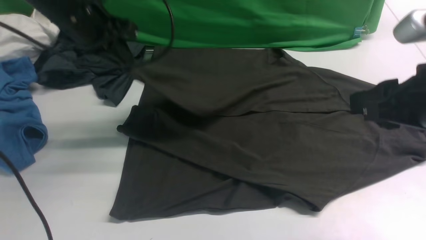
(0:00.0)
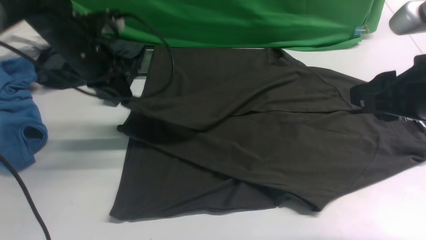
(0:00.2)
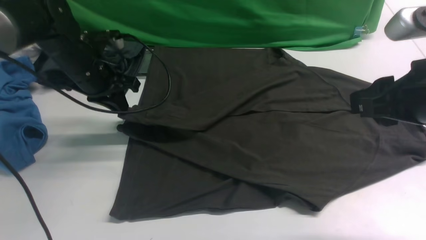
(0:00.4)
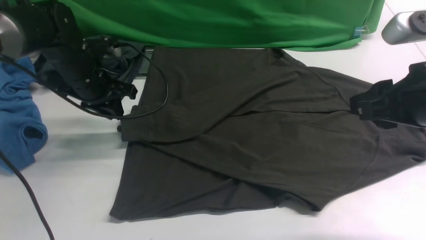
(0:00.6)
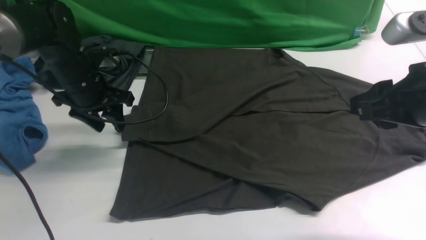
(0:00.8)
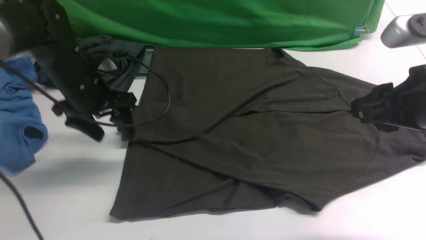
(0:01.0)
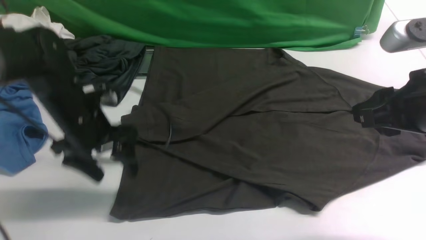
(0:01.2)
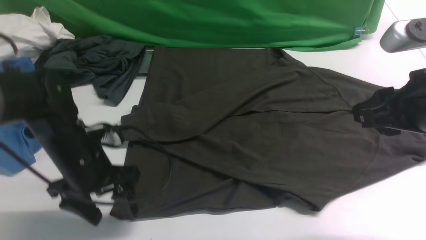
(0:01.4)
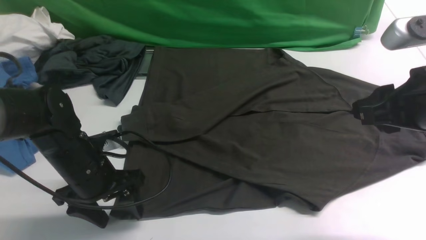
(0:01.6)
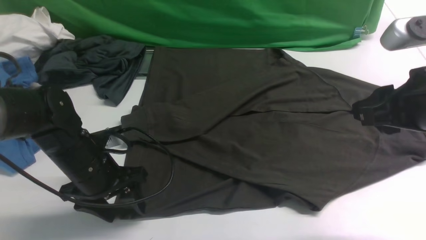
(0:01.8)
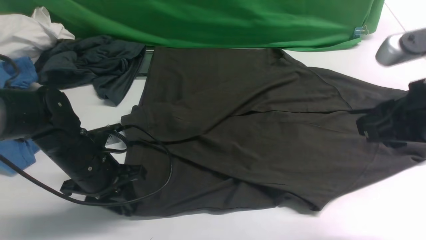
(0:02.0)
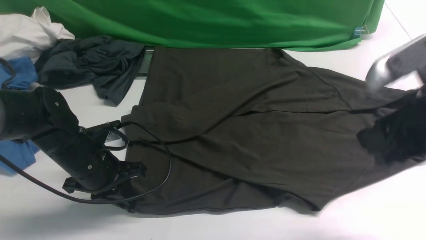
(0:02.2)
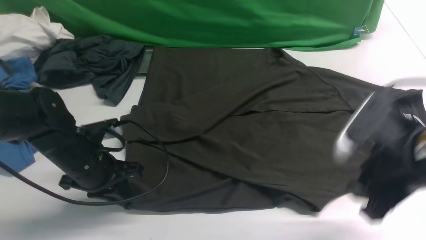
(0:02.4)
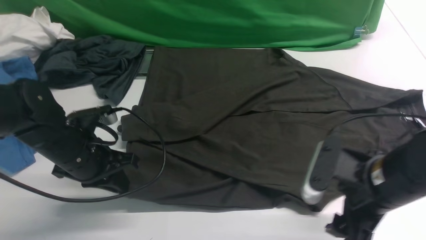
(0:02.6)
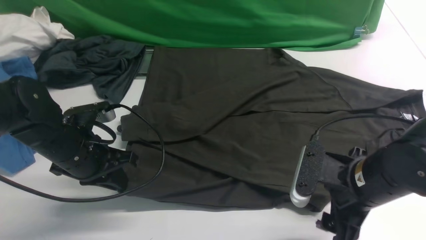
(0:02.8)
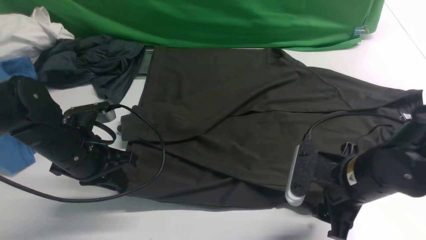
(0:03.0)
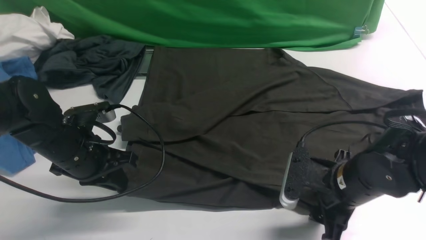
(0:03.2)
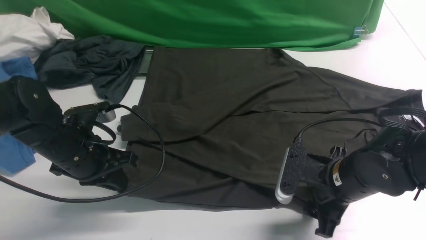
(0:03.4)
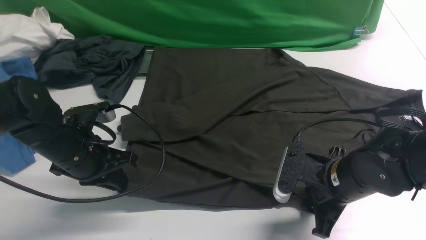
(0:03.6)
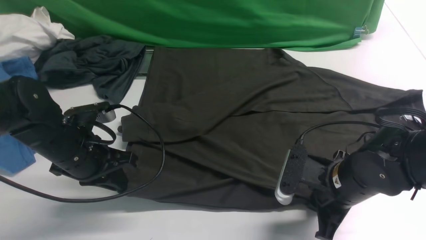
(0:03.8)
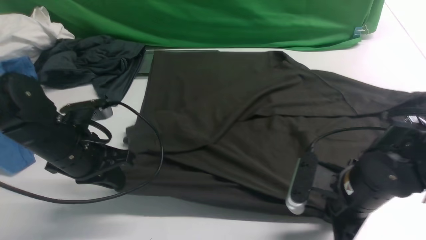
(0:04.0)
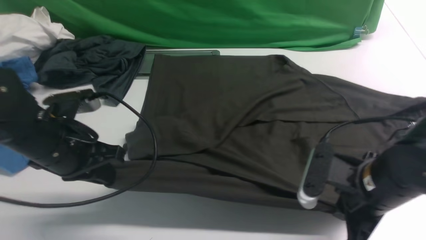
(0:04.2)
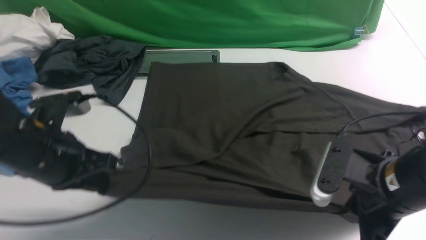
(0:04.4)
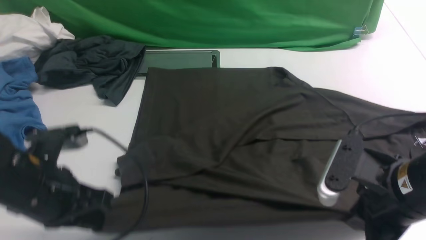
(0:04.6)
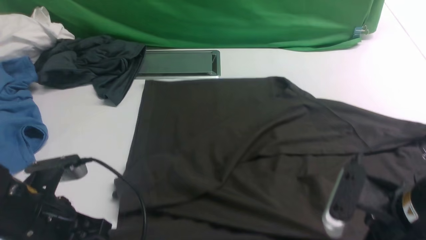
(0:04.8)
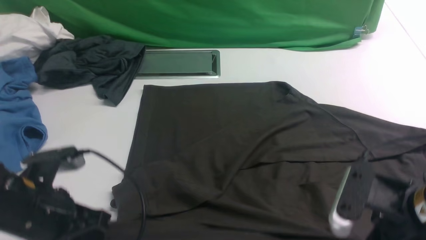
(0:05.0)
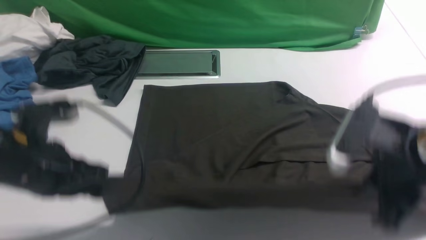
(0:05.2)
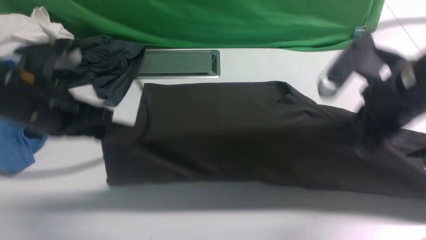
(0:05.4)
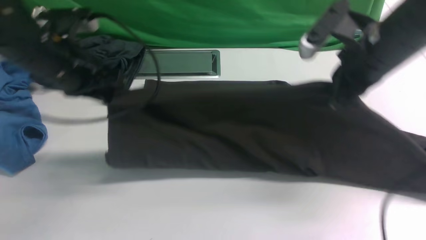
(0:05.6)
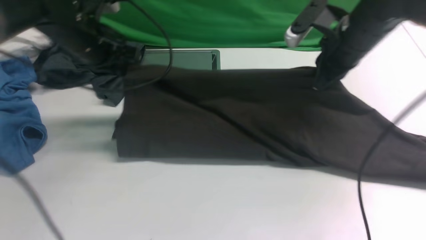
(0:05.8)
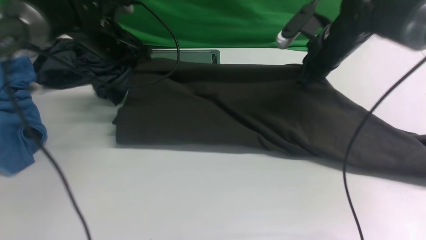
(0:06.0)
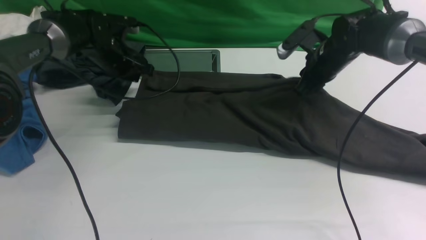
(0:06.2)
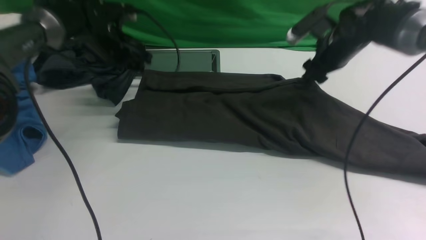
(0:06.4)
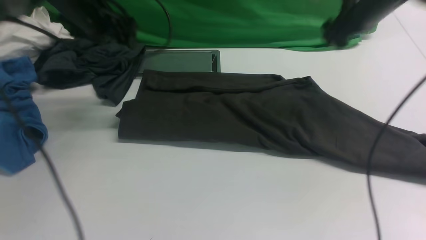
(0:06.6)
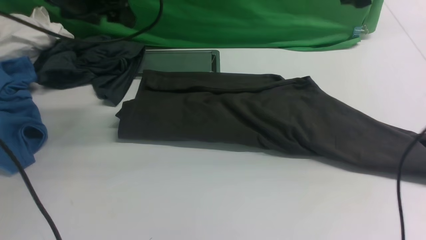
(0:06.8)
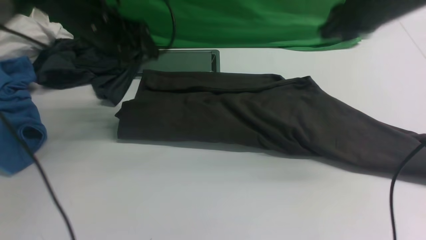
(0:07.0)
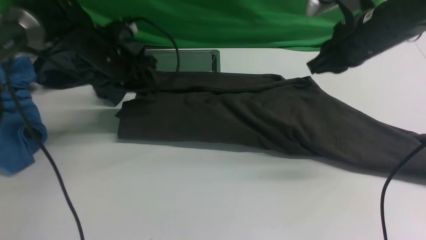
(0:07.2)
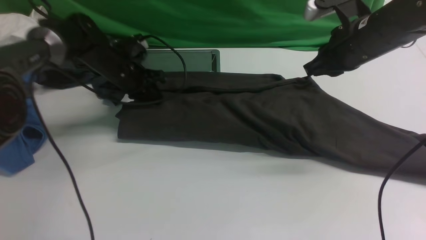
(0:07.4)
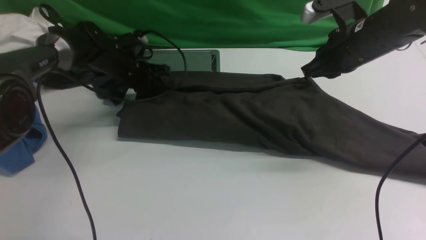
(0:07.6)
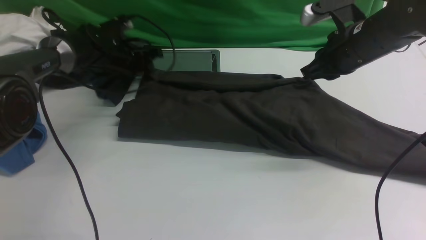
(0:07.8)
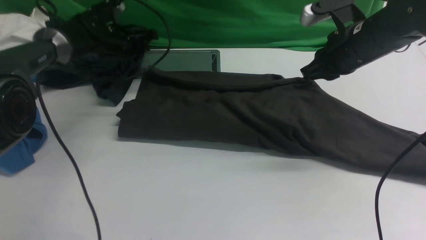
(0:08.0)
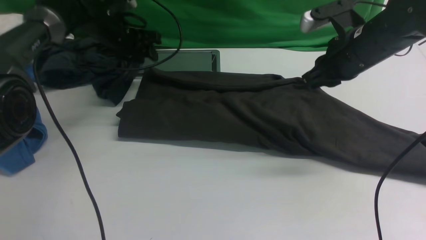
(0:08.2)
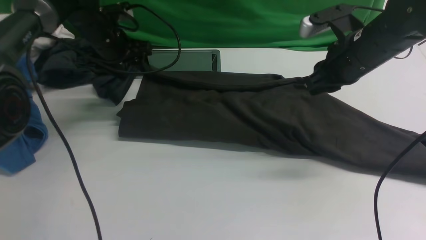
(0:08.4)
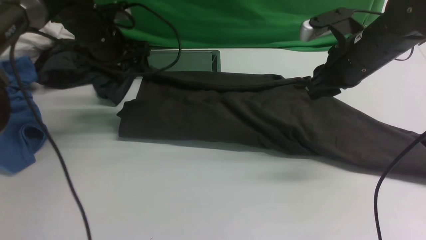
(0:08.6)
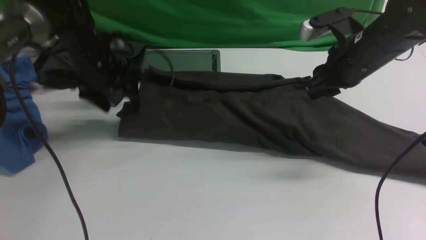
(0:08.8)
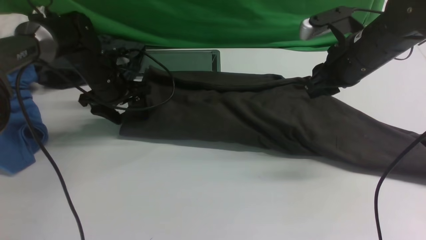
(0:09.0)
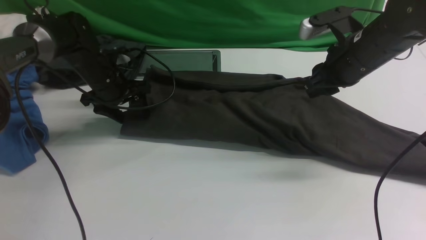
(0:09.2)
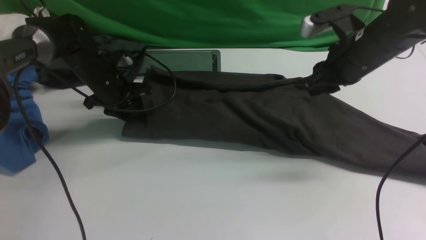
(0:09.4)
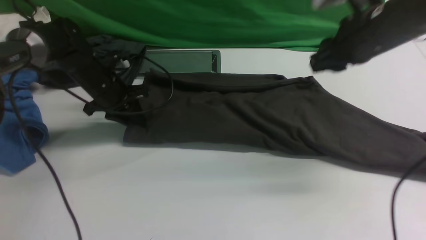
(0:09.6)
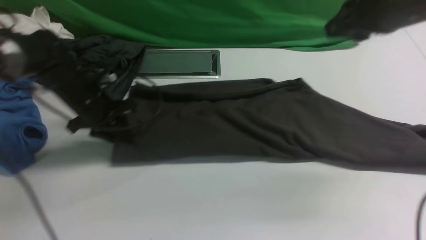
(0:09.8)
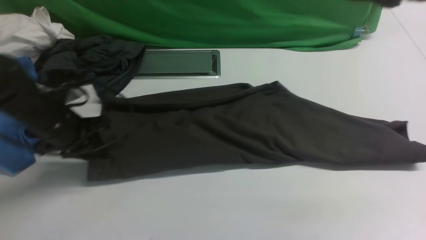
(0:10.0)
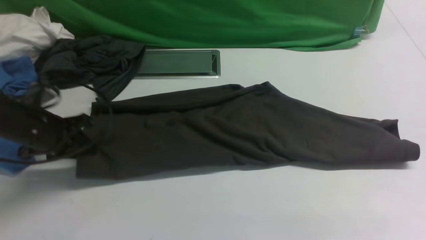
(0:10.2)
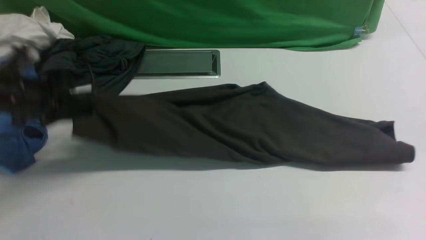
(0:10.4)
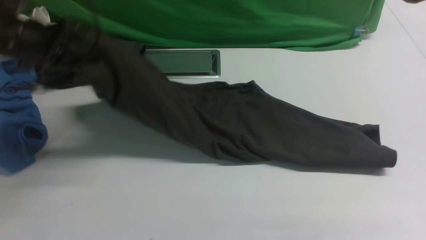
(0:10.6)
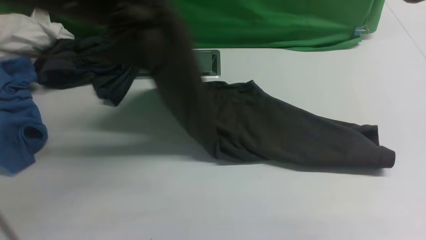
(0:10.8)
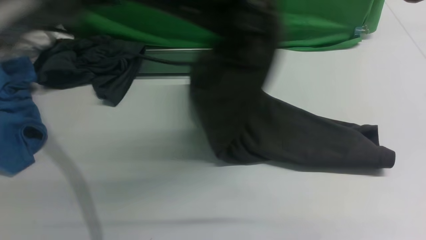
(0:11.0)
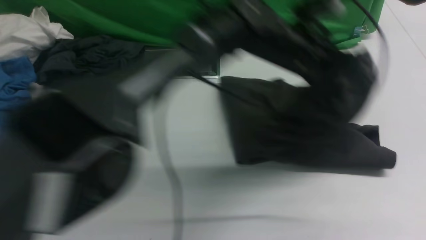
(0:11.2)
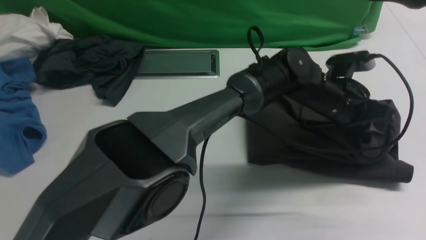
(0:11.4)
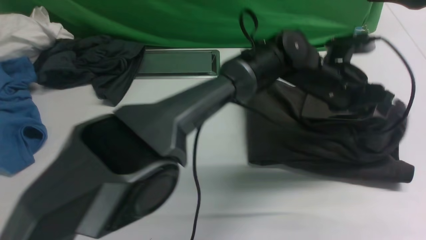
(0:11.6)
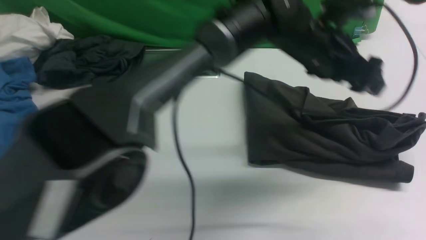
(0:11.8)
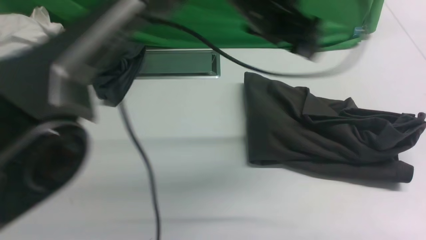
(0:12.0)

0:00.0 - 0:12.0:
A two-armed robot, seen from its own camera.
Step, 0:00.8 - 0:03.8: use both arms simultaneously to clamp the lower edge of the clothing fabric.
Step, 0:04.2 - 0:08.2: use both arms to drag the lower edge of the fabric forward and fold it over the upper edge.
Step, 0:08.4 - 0:10.2: Hold the left edge of the fabric with your left arm.
Step, 0:10.6 - 0:11.8: Drag the left edge of the fabric to the left with your left arm and fold it to the right edge.
0:00.0 - 0:01.6: The left gripper goes about 20 cm downward and backward, and opens up.
0:01.6 - 0:03.0: The left gripper closes up, while the right gripper is displaced downward by about 15 cm, and opens up.
0:03.0 - 0:04.4: The left gripper travels backward by some 5 cm; the right gripper shifts by about 5 cm, and closes up.
0:04.4 - 0:06.0: Both grippers move forward, roughly 25 cm.
0:06.0 - 0:07.6: The left gripper goes about 5 cm downward, and opens, then closes again, while the right gripper is displaced backward by approximately 5 cm, moves about 10 cm upward and comes back, and opens, then closes once more.
0:07.6 - 0:09.0: The left gripper travels backward by approximately 5 cm, and opens up; the right gripper opens up.
0:09.0 - 0:10.4: The right gripper heads upward and backward, covering approximately 20 cm. The left gripper goes roughly 15 cm backward, upward and to the left, and closes.
0:10.4 - 0:12.0: The left gripper moves to the right, about 30 cm, and opens.

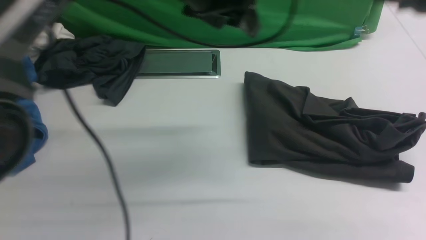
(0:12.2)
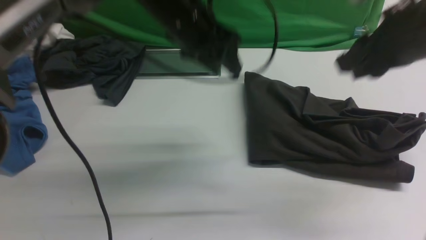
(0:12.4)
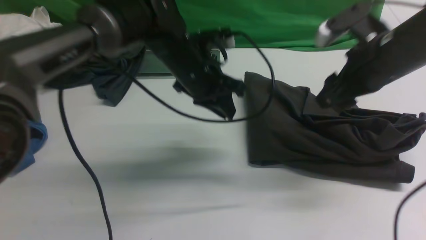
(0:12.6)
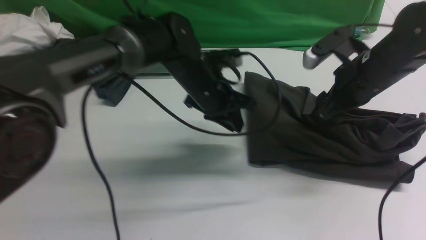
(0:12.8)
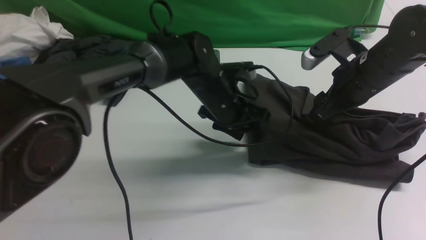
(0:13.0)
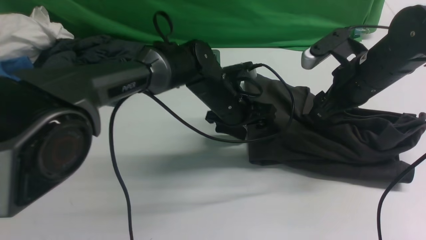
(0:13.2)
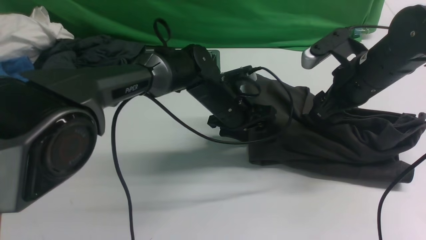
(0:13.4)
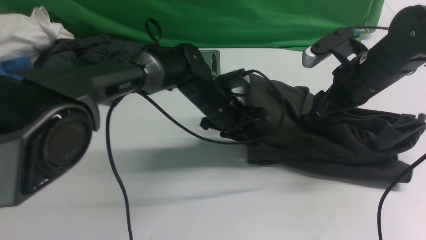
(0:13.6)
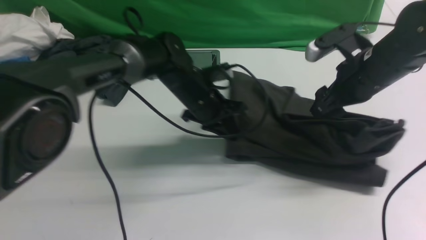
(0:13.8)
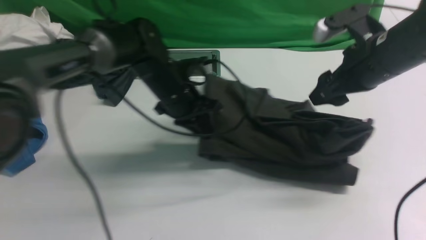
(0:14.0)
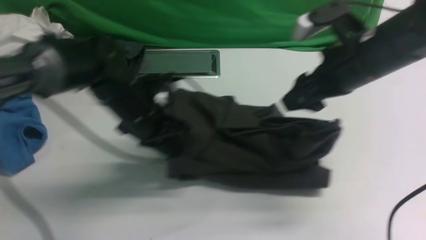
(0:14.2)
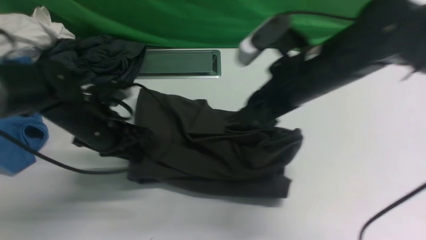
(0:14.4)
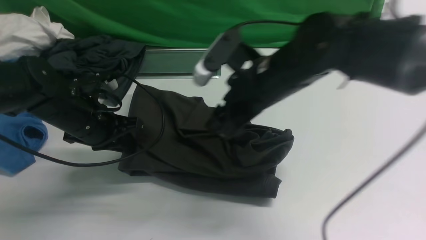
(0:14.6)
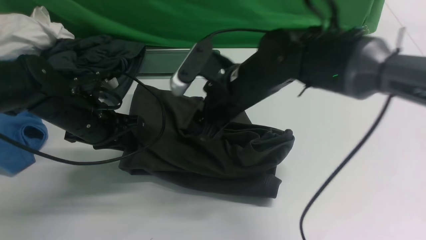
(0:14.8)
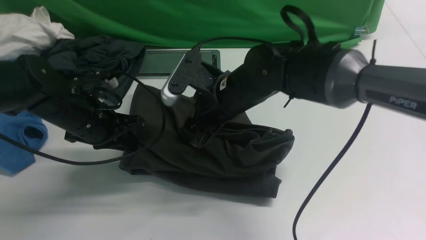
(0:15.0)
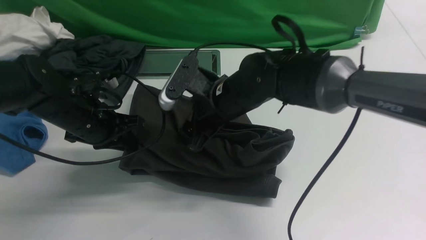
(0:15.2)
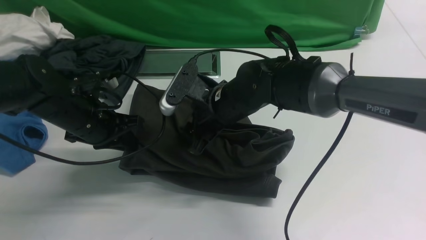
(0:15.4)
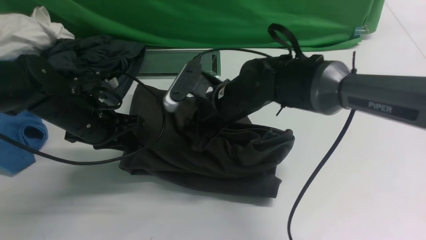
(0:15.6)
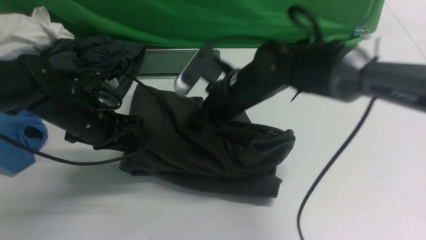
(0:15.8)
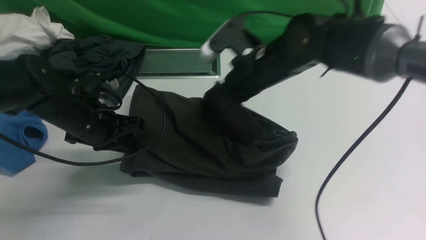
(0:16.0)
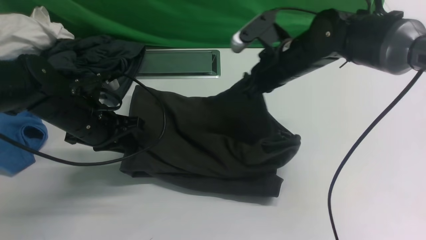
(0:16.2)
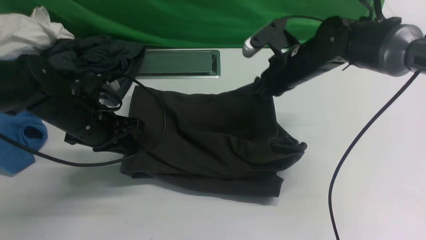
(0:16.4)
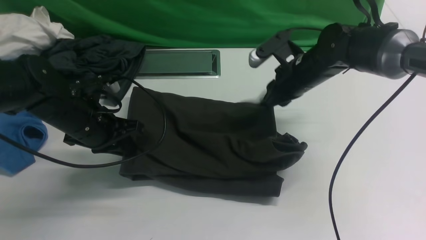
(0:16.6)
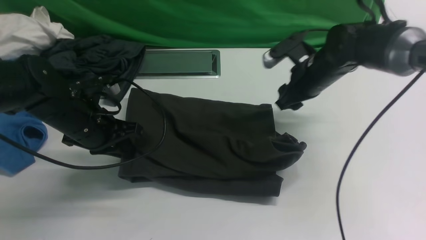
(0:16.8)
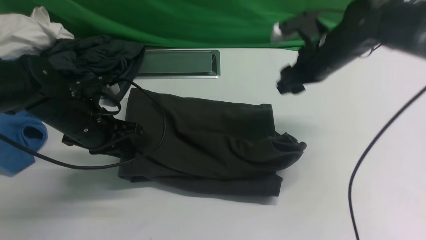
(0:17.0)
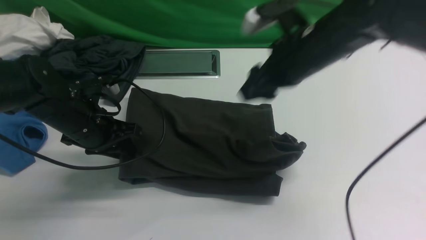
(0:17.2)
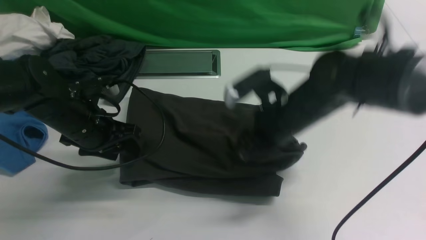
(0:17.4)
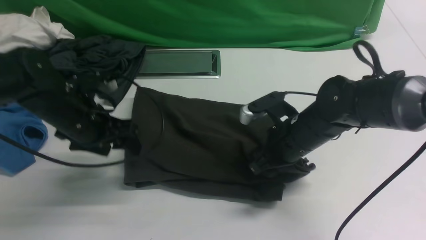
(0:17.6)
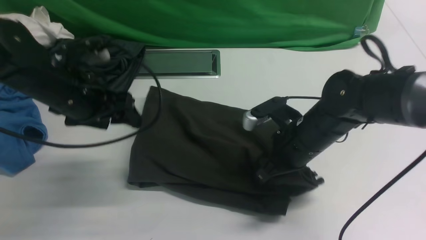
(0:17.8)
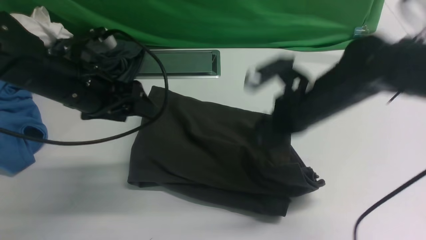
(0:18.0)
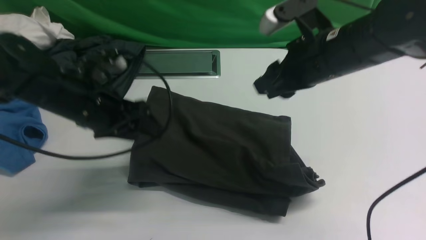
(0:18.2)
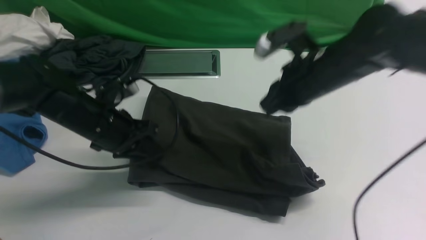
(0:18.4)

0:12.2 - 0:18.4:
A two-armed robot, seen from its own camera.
0:12.2 - 0:13.8: The right gripper is displaced downward and forward by approximately 15 cm, and opens its fingers. Meanwhile the left gripper moves downward, roughly 15 cm, and closes up.
0:13.8 - 0:15.4: The left gripper shifts approximately 15 cm to the left and backward. Meanwhile the right gripper travels to the left by approximately 20 cm, and closes up.
0:15.4 - 0:16.8: The right gripper goes approximately 15 cm to the right and forward, and closes and opens again.
0:16.8 - 0:18.4: The right gripper is displaced backward by approximately 5 cm, and closes its fingers, while the left gripper opens, then closes once more.
